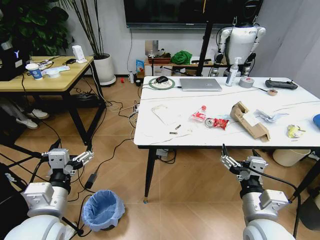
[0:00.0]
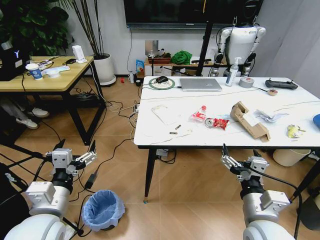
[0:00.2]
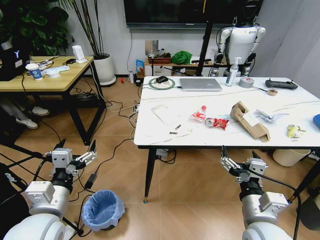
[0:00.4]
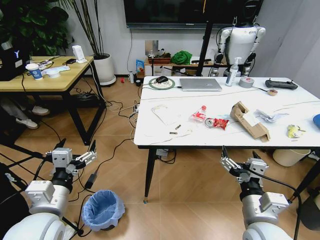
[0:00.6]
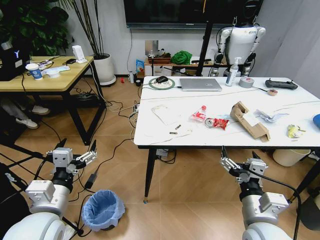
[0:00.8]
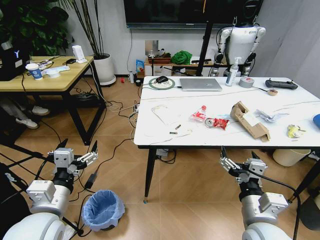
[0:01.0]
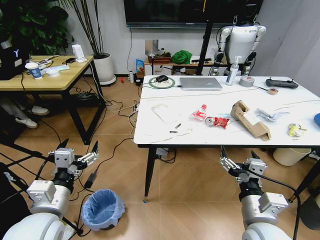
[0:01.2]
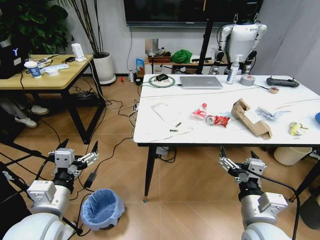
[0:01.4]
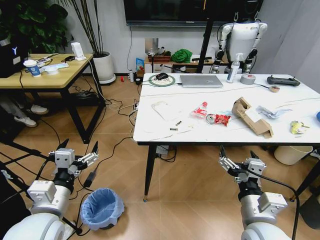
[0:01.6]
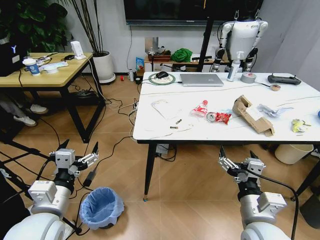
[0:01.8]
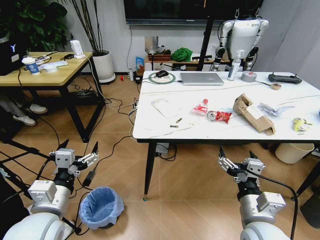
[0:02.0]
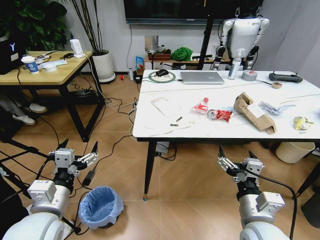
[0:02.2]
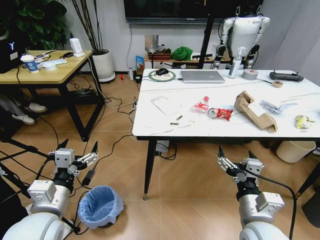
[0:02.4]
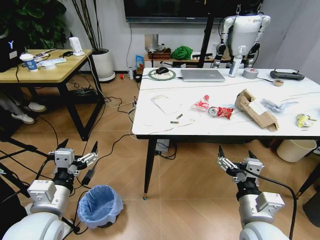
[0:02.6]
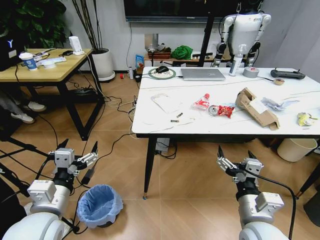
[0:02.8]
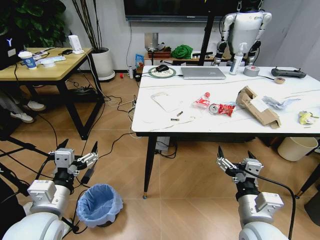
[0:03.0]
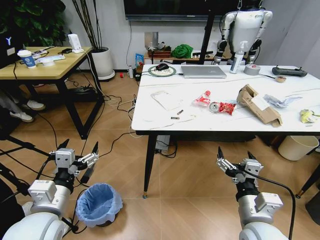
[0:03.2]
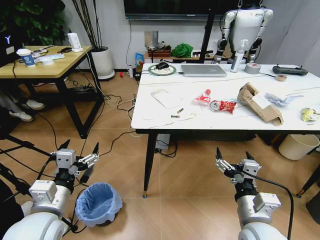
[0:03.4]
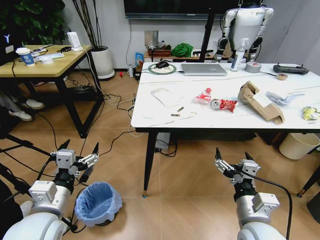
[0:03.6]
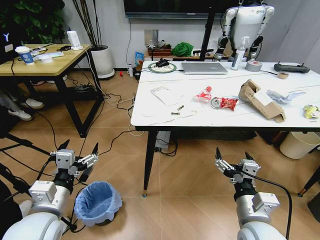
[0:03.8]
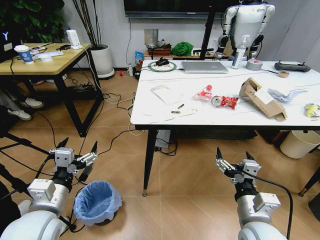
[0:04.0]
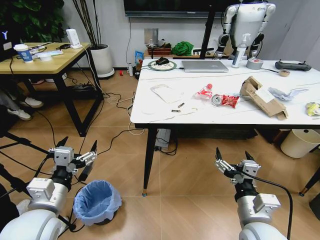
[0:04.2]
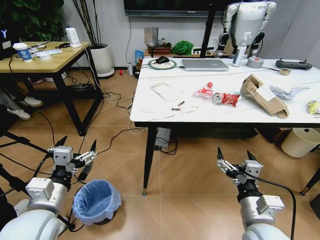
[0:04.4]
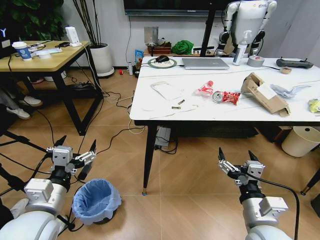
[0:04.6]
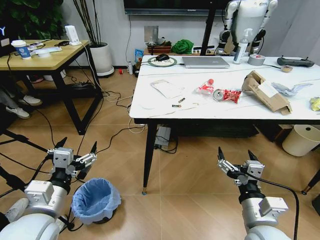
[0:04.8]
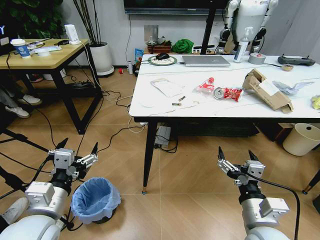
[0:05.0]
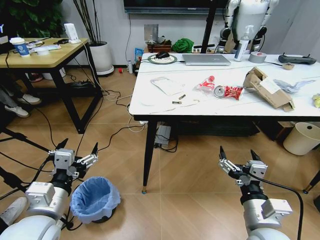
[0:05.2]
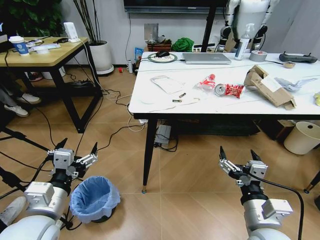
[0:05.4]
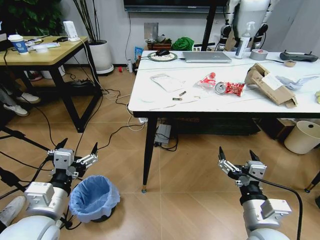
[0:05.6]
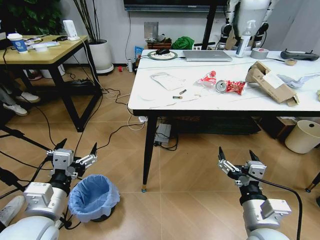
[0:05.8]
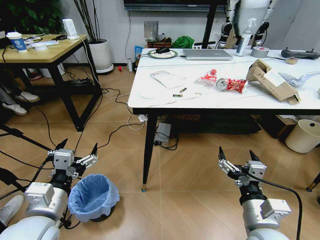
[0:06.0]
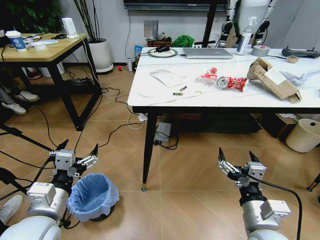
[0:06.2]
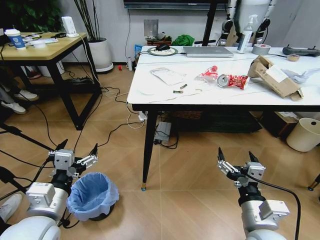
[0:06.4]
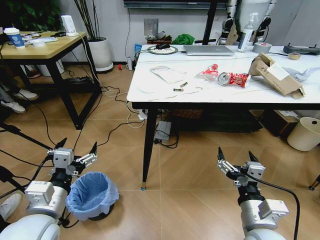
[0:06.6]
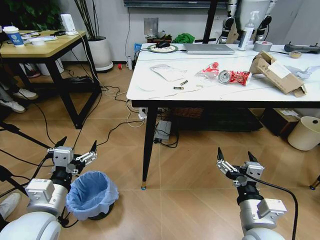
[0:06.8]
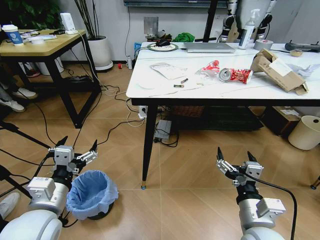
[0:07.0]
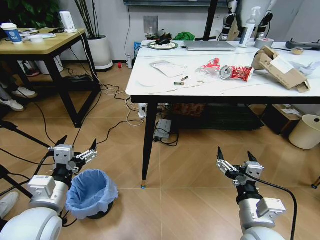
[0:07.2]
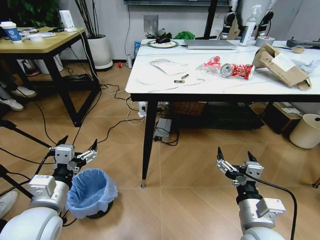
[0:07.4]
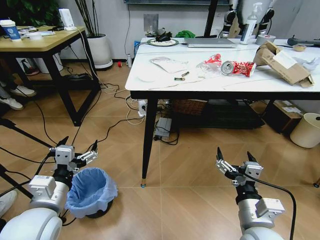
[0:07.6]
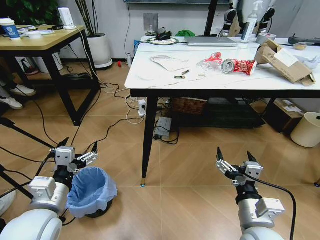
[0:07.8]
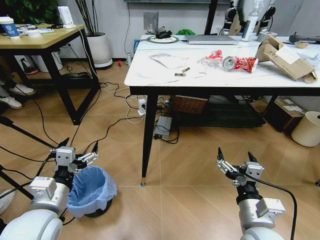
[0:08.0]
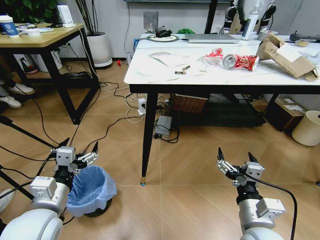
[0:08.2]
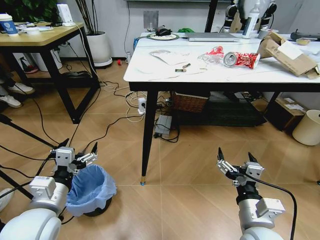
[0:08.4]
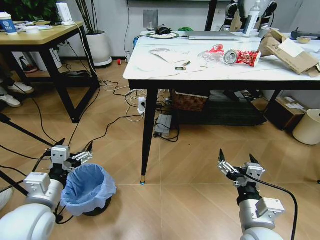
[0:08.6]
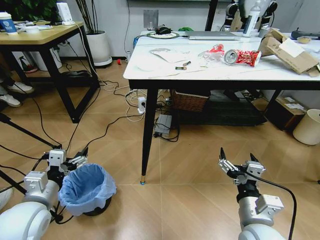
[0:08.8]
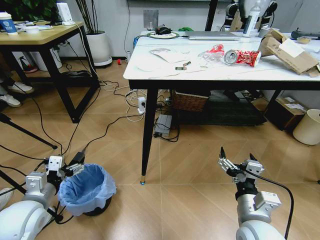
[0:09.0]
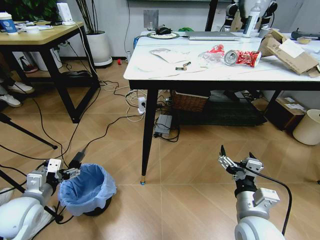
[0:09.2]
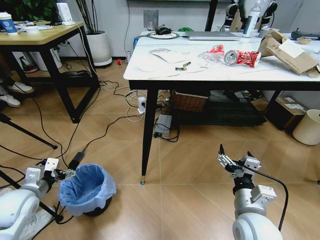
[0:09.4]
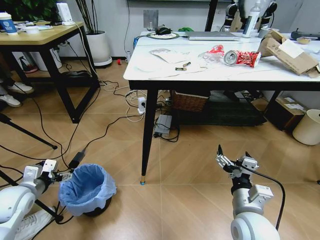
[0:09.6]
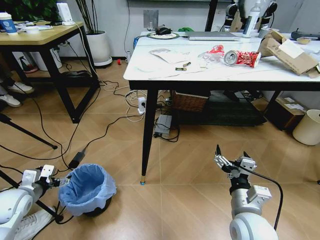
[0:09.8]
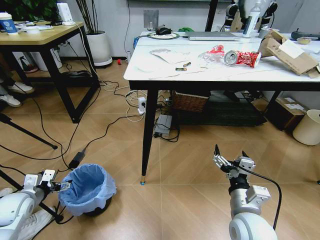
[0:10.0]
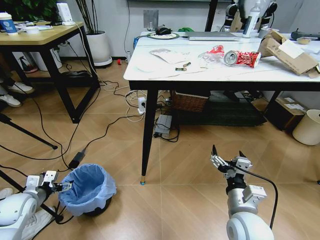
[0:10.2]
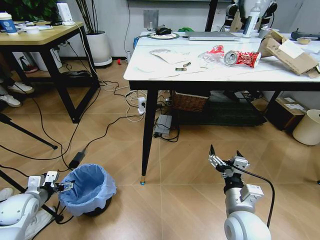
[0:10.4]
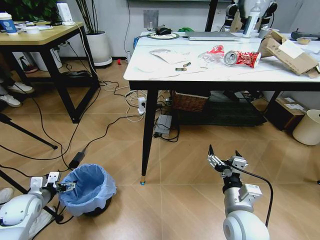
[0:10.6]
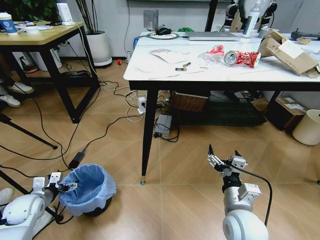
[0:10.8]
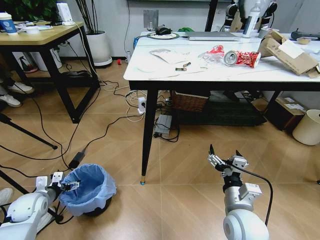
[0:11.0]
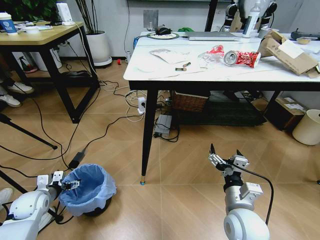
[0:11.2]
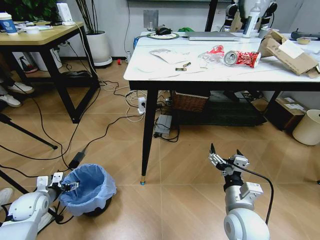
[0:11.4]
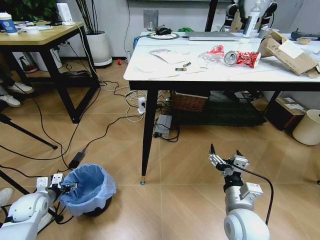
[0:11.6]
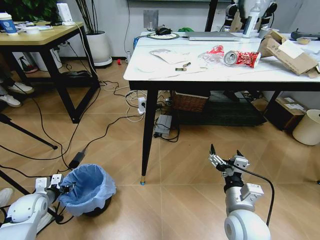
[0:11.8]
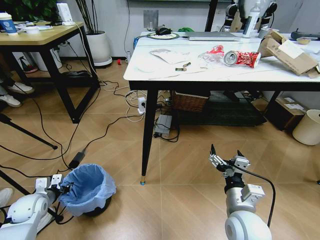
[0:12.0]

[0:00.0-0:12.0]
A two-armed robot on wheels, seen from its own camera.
Task of the whole recording: Pick up the trash bin and place the trash from the table into it.
0:07.6 to 0:09.0: The left gripper heads to the left and downward, covering about 10 cm.
0:09.0 to 0:10.4: The left gripper heads to the left, downward and forward, covering about 15 cm.
0:10.4 to 0:12.0: The left gripper closes its fingers.

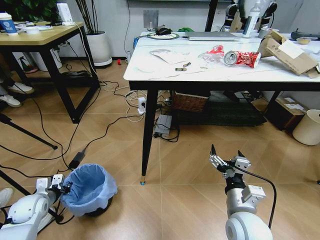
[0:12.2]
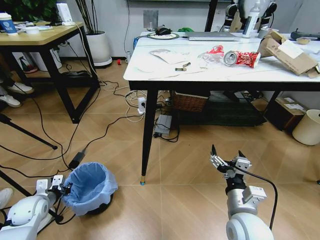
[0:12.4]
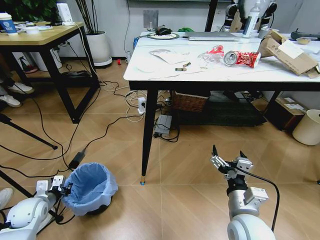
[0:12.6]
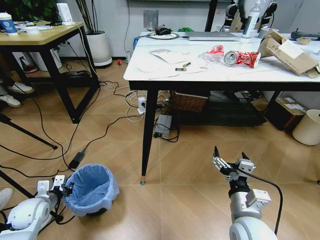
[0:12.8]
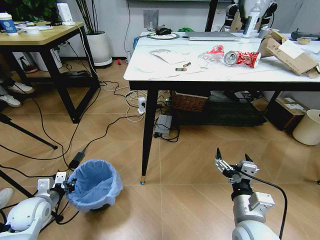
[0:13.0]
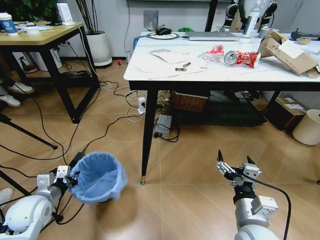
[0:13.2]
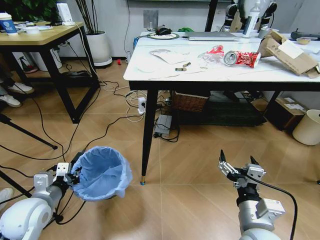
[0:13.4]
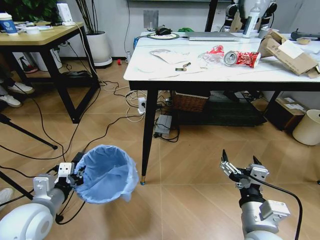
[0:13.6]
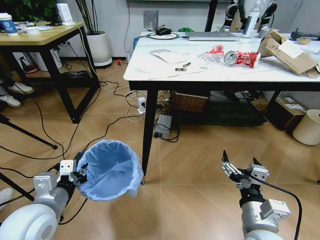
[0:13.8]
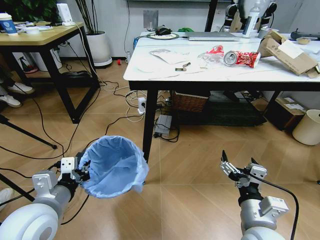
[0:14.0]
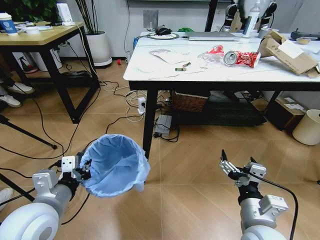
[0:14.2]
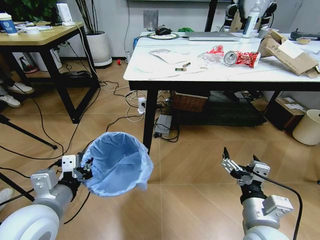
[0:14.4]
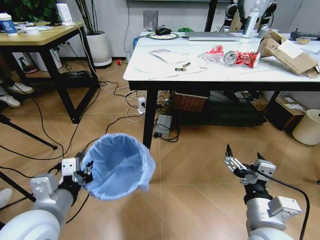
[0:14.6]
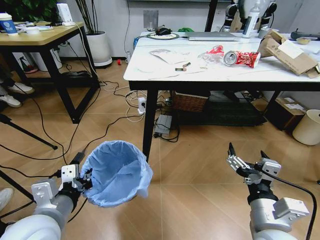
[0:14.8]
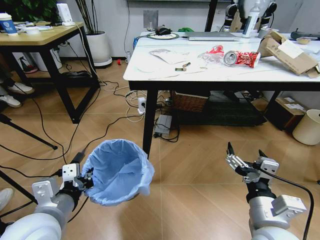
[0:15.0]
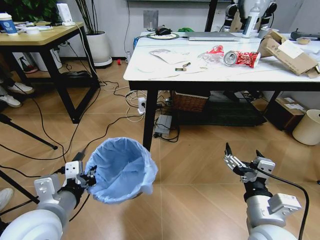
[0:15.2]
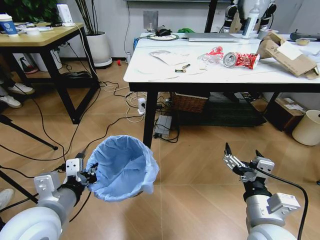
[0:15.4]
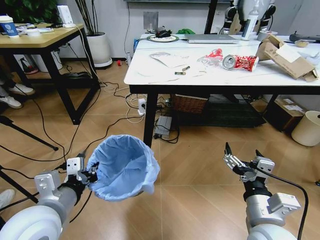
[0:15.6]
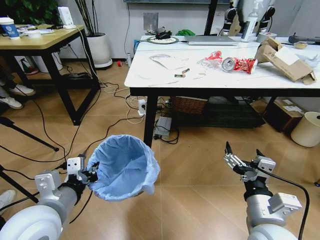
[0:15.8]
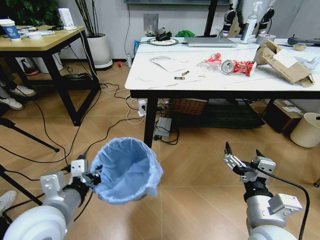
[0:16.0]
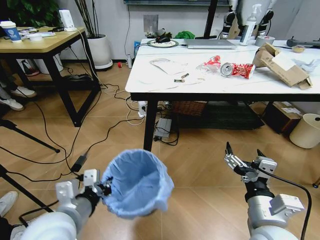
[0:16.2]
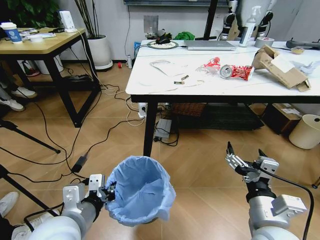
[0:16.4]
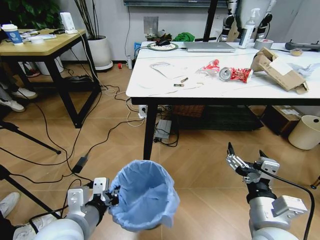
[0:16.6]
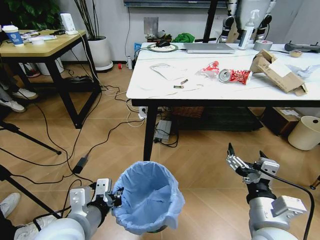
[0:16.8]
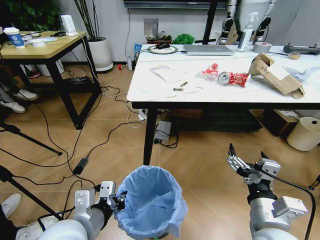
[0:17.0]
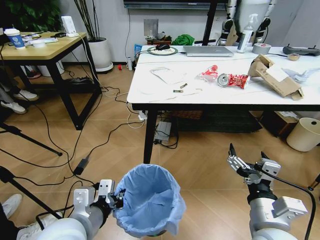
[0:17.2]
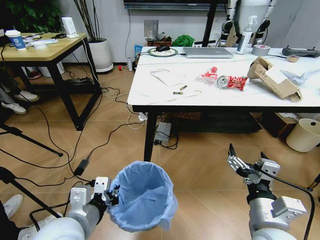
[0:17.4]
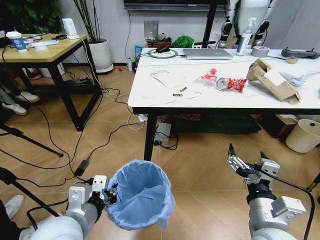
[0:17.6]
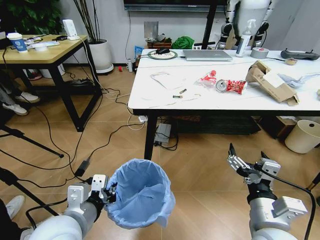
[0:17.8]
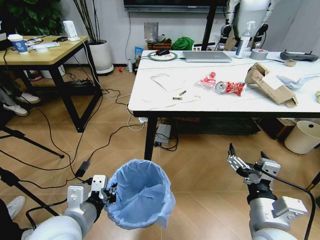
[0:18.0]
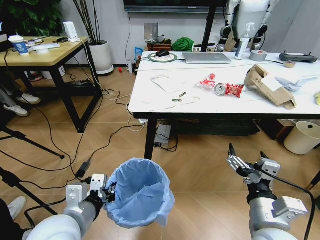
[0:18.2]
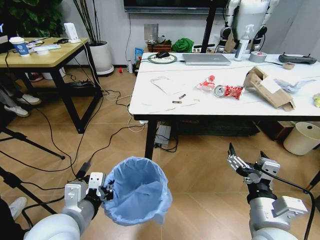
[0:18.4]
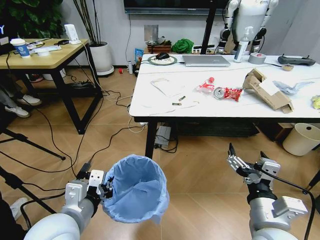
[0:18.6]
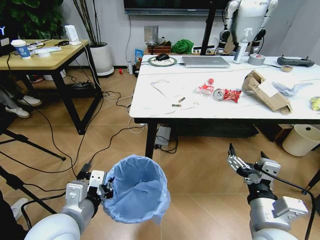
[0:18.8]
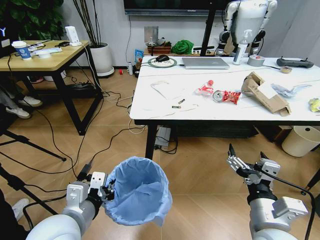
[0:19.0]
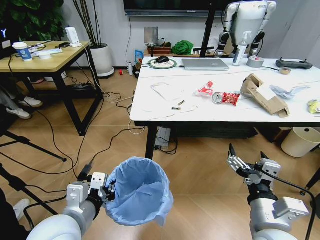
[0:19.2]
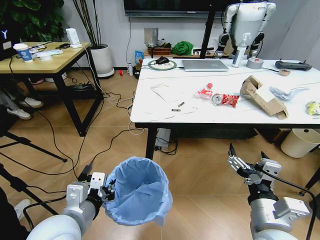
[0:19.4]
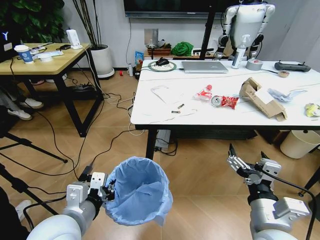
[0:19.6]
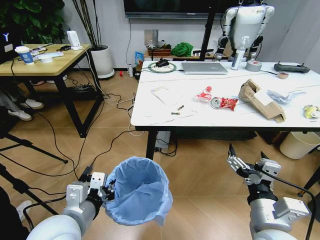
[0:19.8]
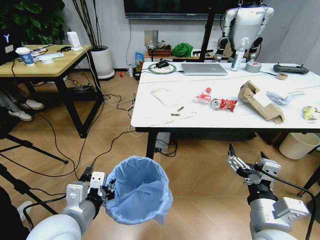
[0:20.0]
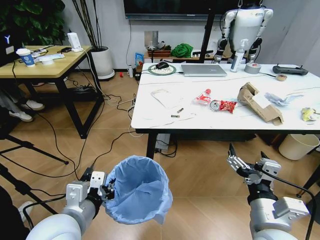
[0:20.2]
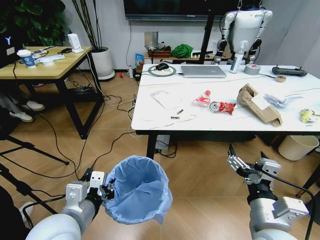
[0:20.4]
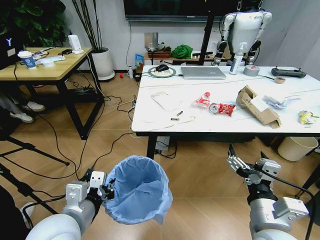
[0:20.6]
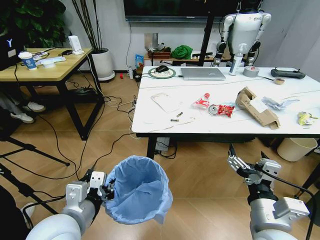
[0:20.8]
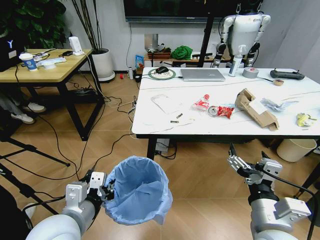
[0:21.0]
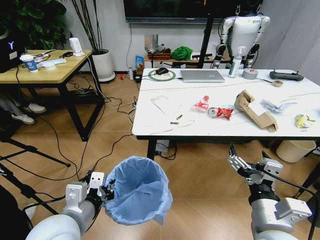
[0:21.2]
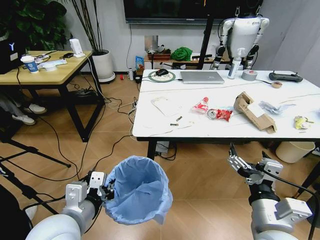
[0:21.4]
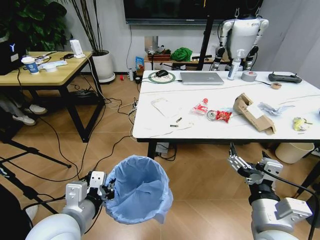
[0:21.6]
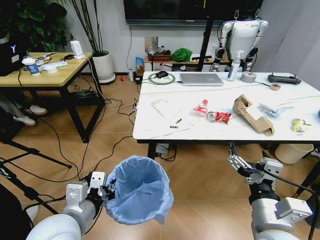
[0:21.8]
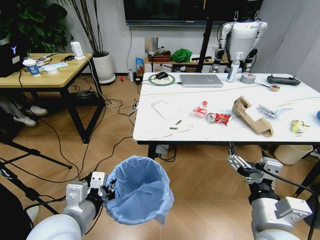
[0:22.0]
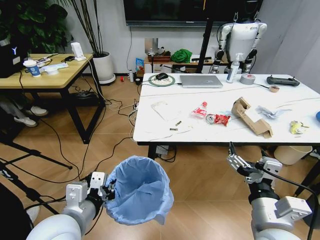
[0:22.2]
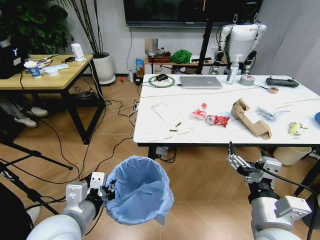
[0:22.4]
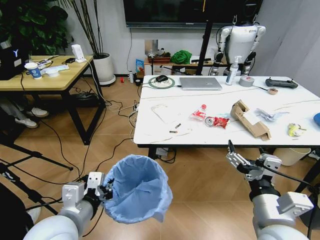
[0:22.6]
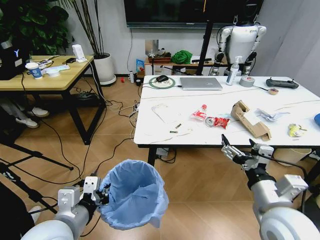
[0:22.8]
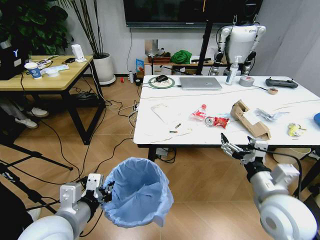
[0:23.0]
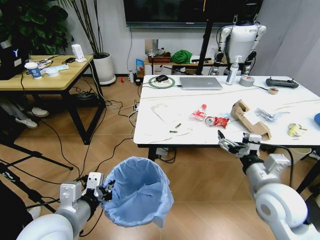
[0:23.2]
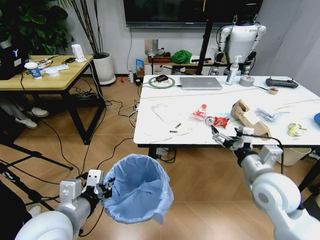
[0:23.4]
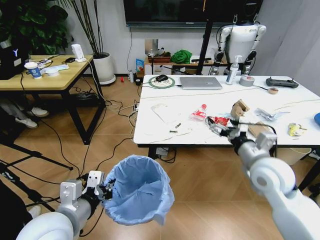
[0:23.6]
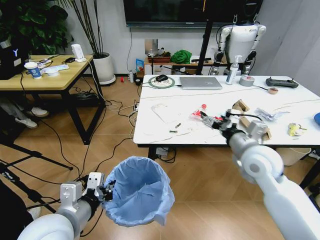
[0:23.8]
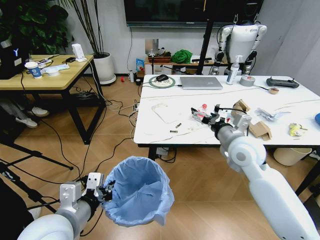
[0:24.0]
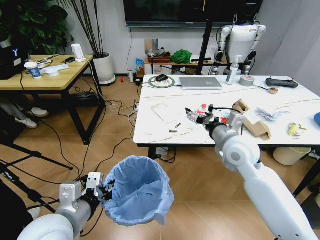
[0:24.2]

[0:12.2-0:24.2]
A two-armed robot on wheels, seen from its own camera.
Task of the whole recording: Pick up the trash bin and place the trash from the table into it.
0:12.2 to 0:13.8: The right gripper moves approximately 5 cm; the left gripper heads upward, to the right and backward, covering roughly 25 cm.
0:13.8 to 0:15.2: The left gripper changes place by approximately 5 cm.
0:15.2 to 0:16.6: The left gripper ends up some 5 cm from where it was.
0:22.6 to 0:24.2: The right gripper shifts some 20 cm forward.
